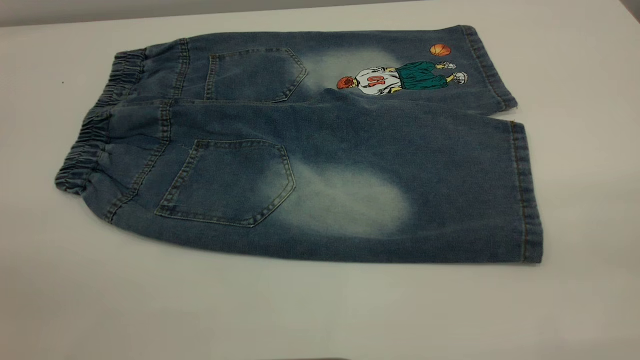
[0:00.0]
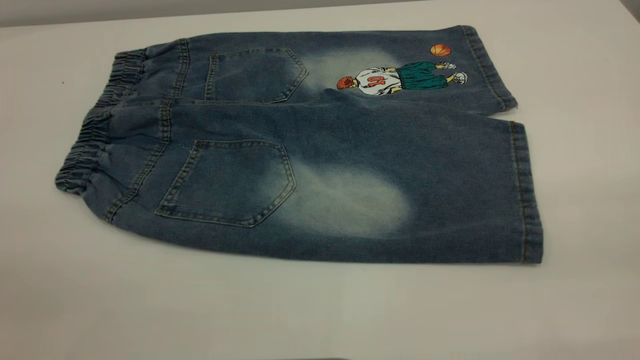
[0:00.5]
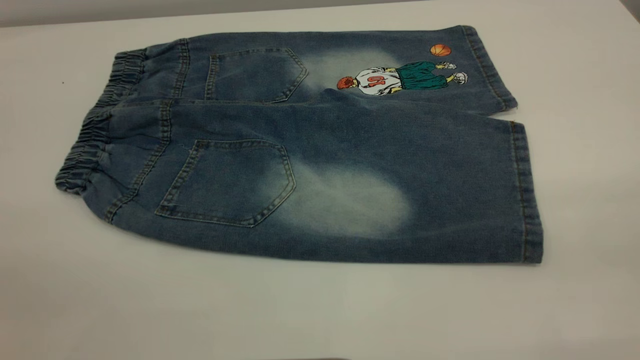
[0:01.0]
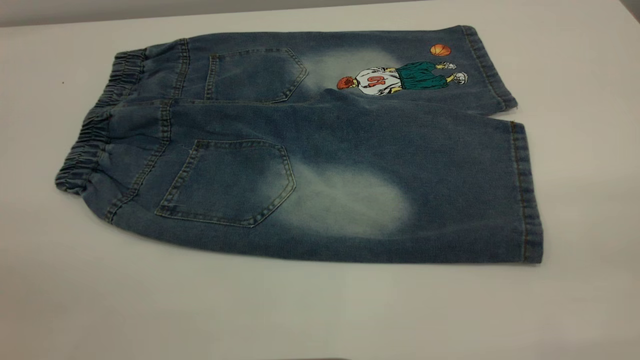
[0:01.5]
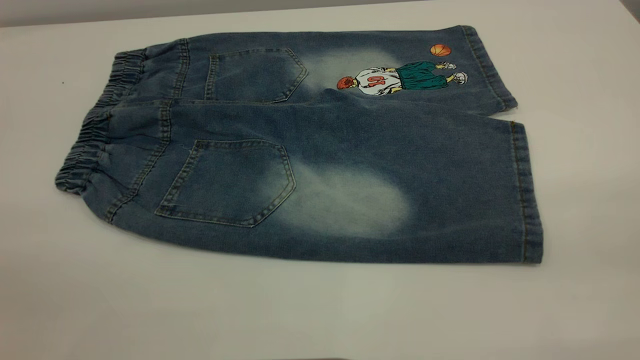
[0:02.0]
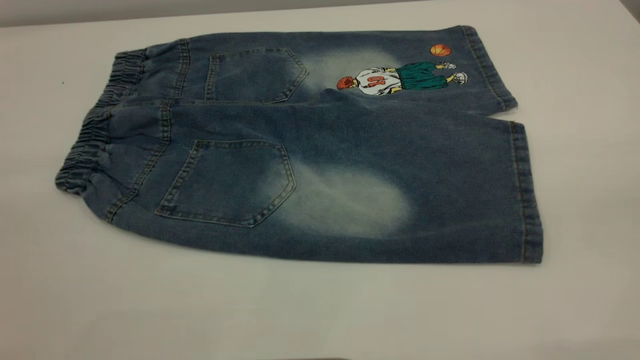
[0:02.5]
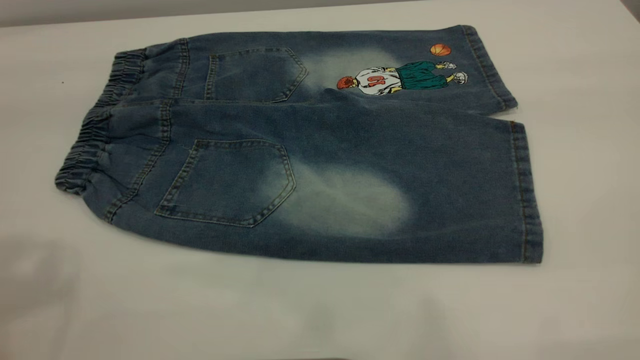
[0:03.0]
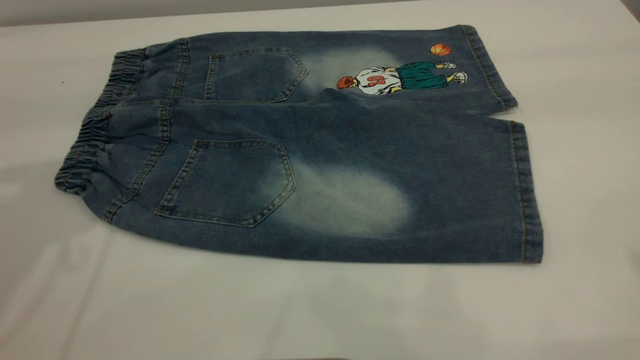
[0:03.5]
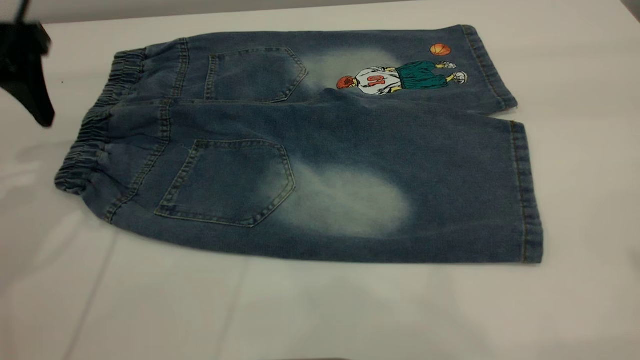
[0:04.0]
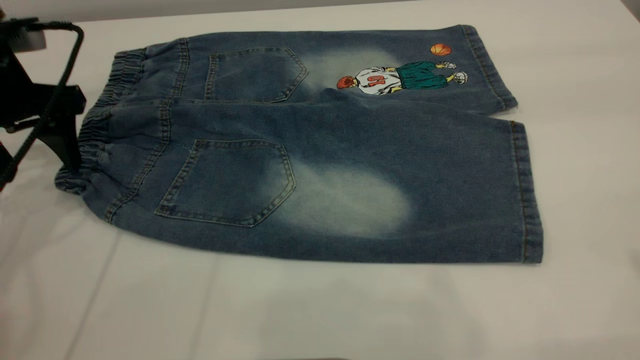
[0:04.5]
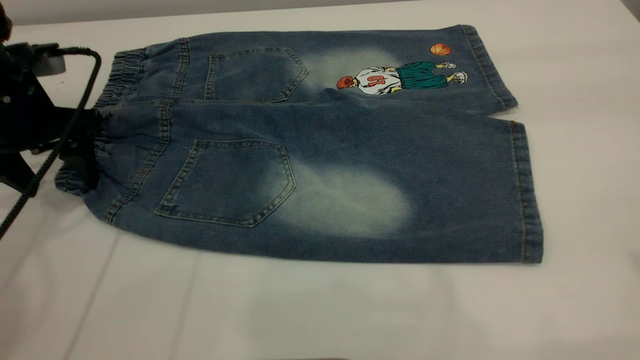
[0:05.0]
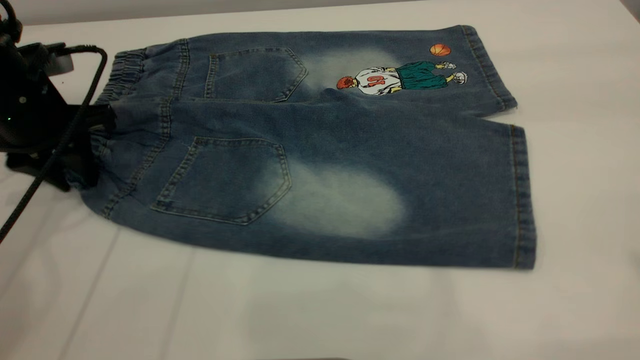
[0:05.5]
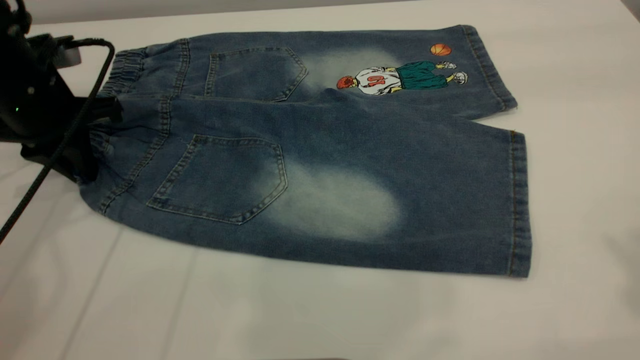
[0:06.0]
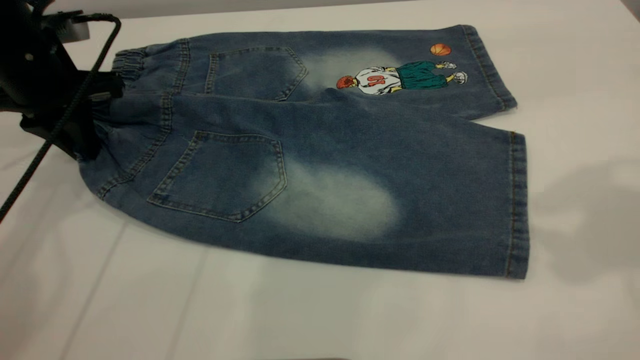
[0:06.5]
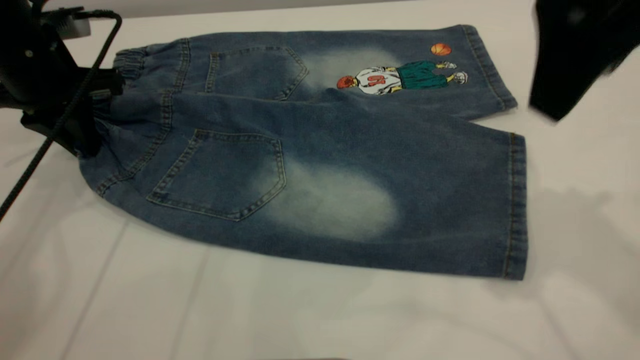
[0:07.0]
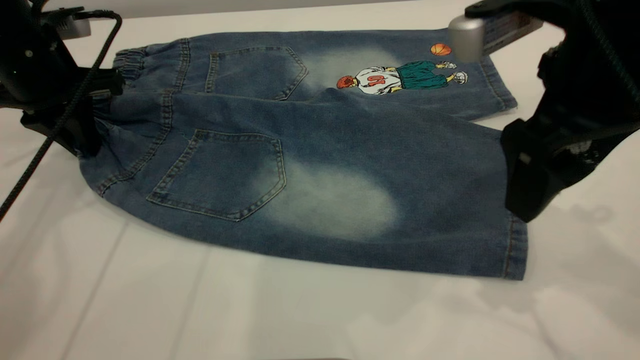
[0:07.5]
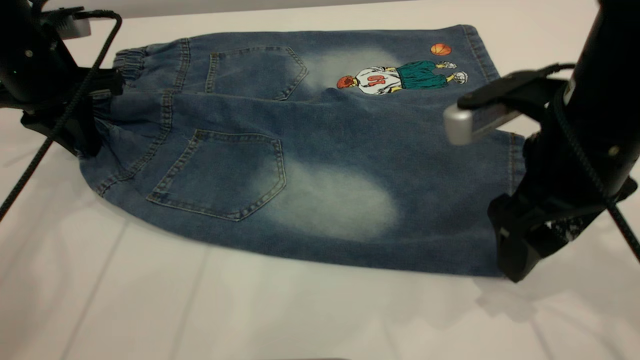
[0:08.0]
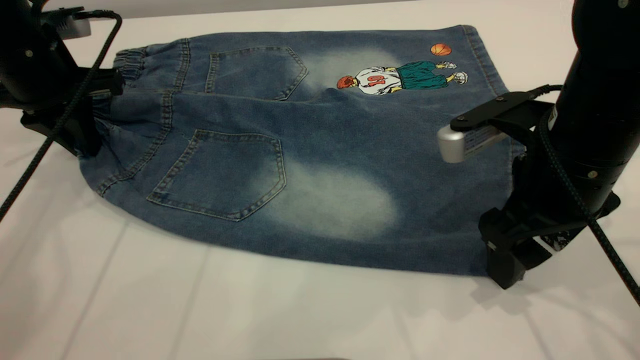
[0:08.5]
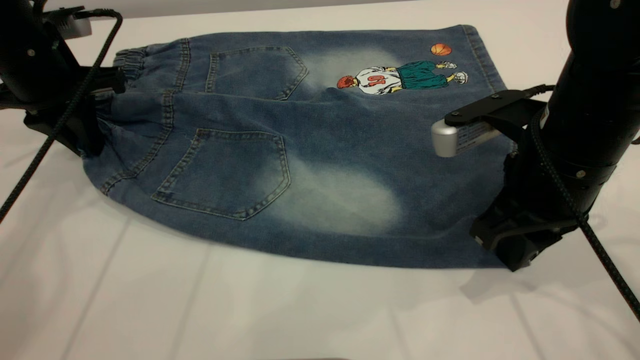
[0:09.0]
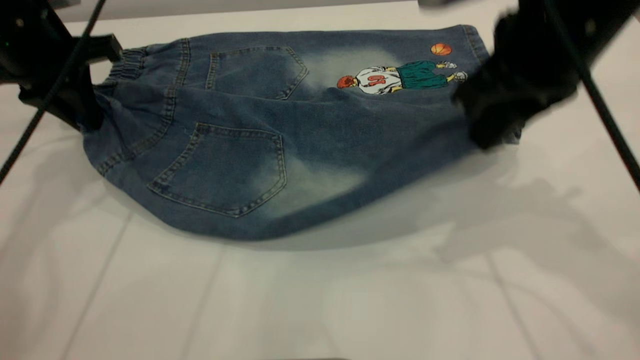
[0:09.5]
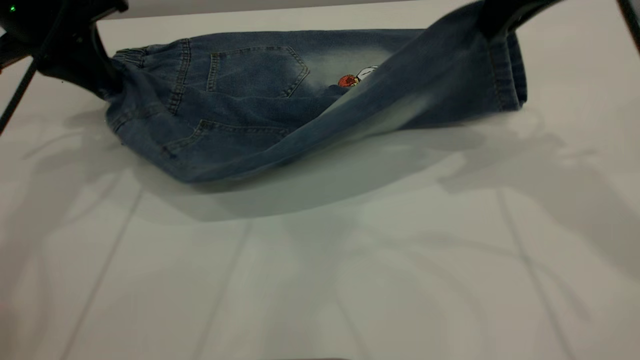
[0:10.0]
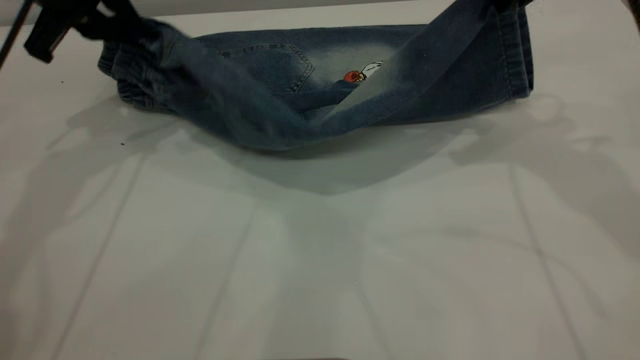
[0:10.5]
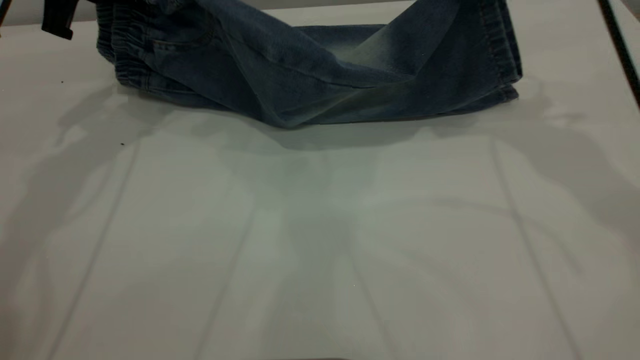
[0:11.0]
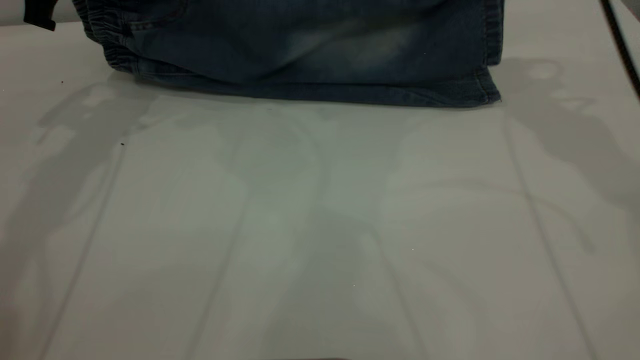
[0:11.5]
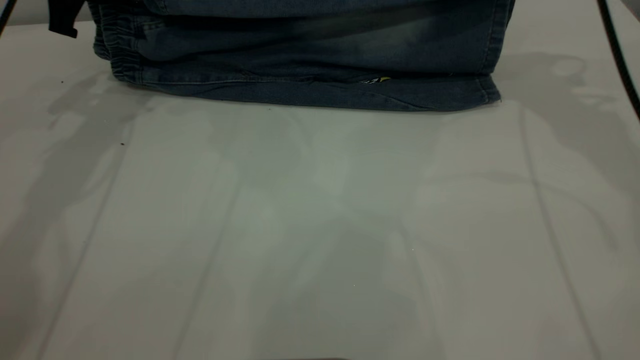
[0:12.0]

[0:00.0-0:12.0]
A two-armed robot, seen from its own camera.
0:00.0 to 0:02.0: Both grippers stay about where they are.
0:02.0 to 0:04.0: The left gripper is displaced forward by about 35 cm.
0:04.0 to 0:06.0: The left gripper travels downward by approximately 10 cm, and closes.
0:06.0 to 0:08.0: The right gripper travels downward by roughly 30 cm.
0:08.0 to 0:10.0: The left gripper travels upward by roughly 5 cm, while the right gripper heads upward and forward, covering approximately 15 cm, and closes its fingers.
0:10.0 to 0:12.0: The right gripper travels forward and to the right by some 10 cm. The left gripper is displaced forward by about 5 cm.

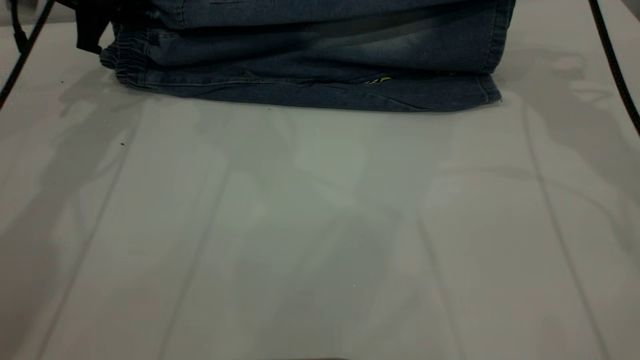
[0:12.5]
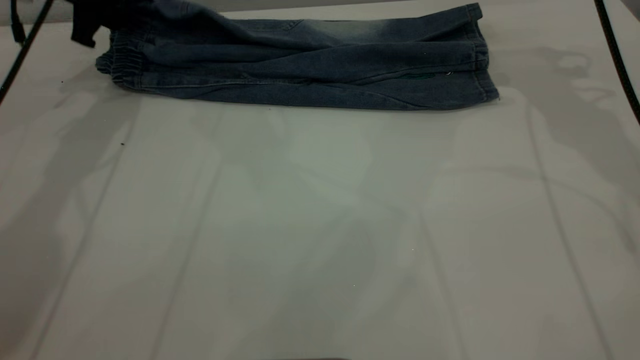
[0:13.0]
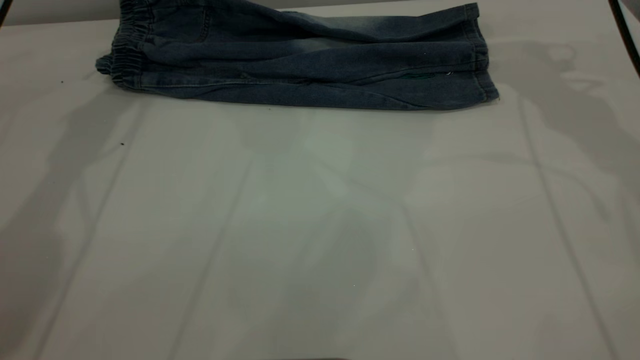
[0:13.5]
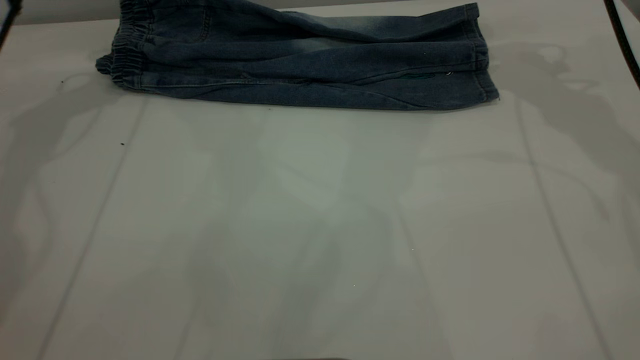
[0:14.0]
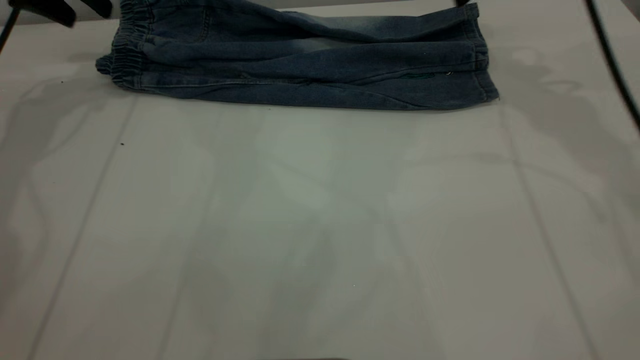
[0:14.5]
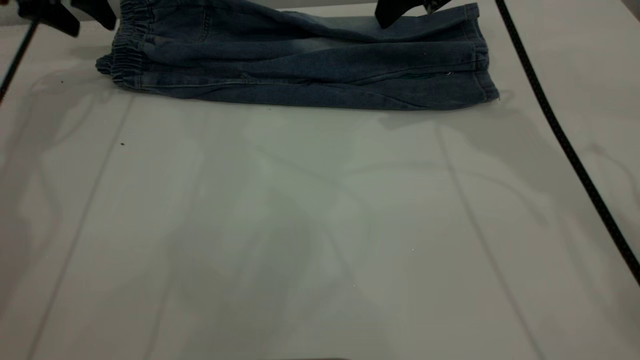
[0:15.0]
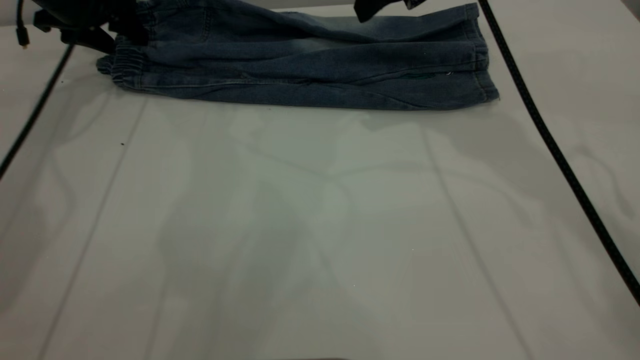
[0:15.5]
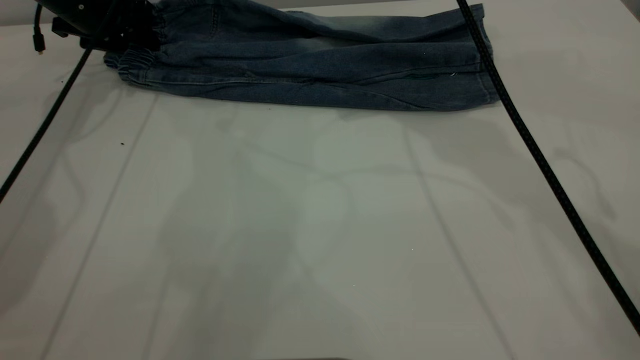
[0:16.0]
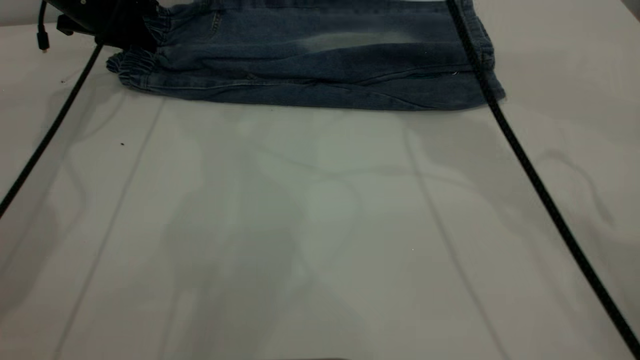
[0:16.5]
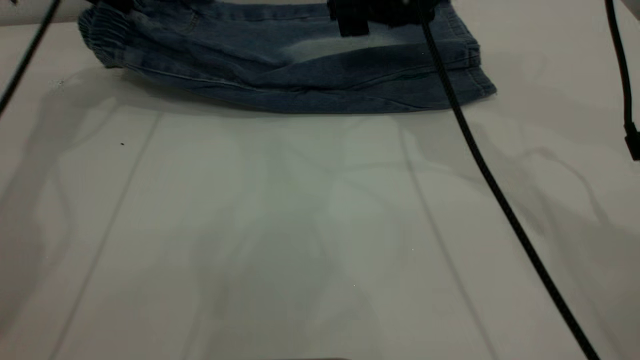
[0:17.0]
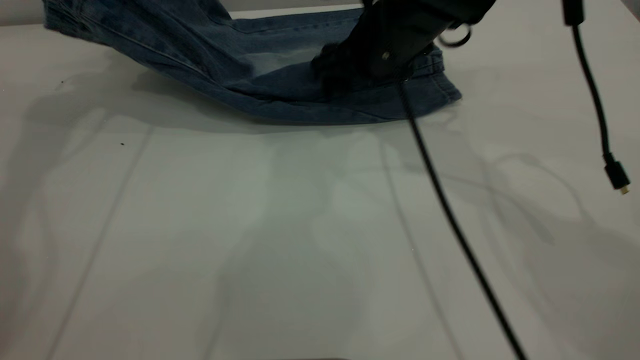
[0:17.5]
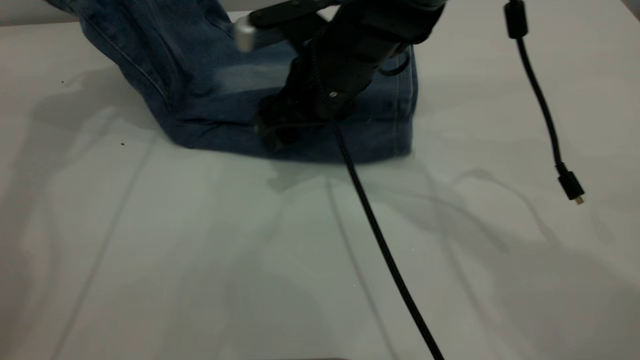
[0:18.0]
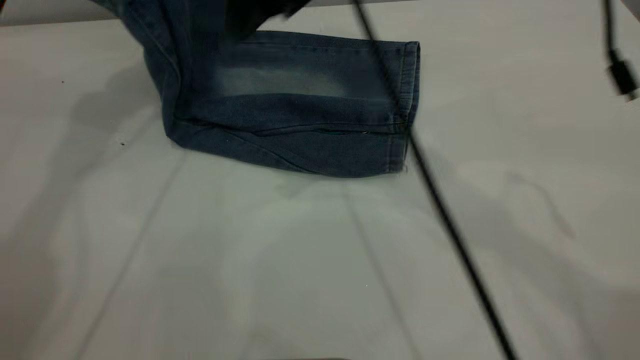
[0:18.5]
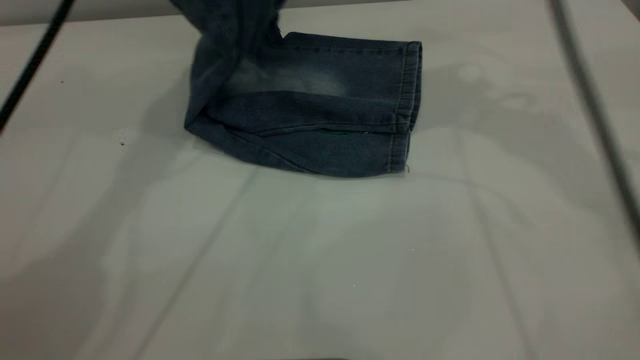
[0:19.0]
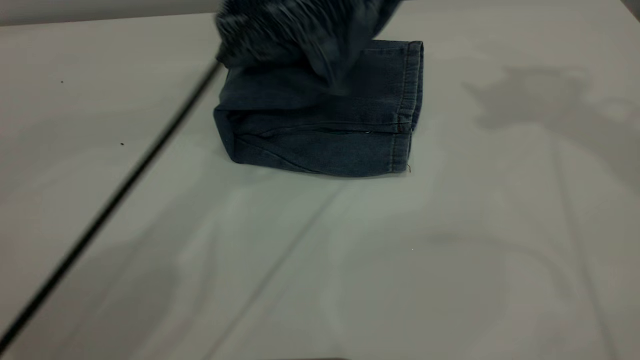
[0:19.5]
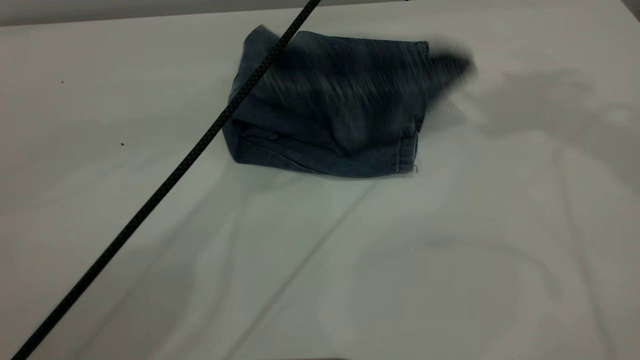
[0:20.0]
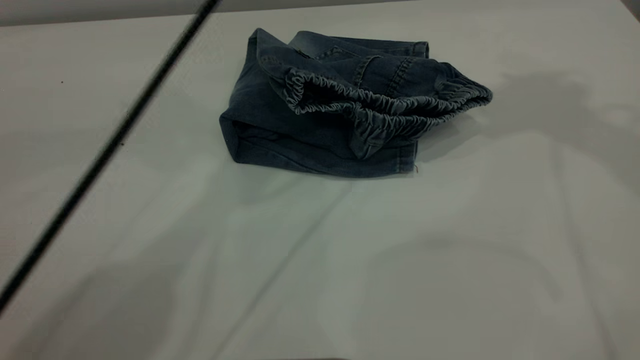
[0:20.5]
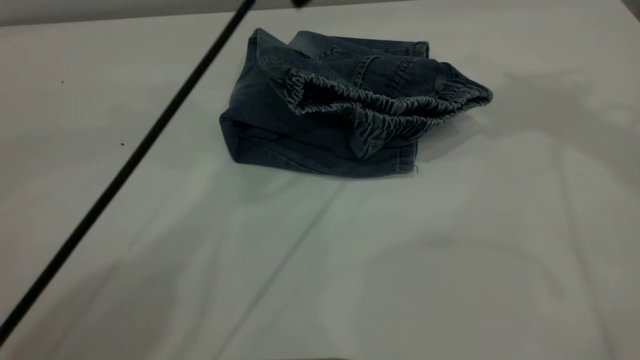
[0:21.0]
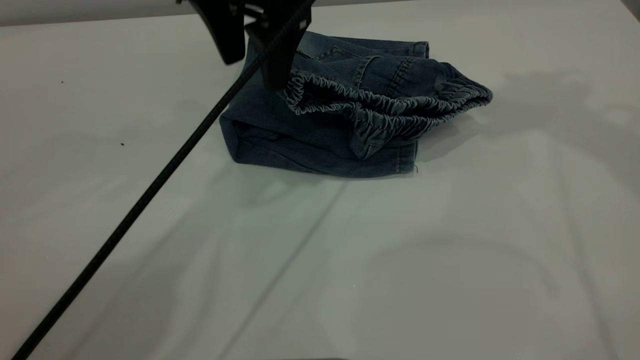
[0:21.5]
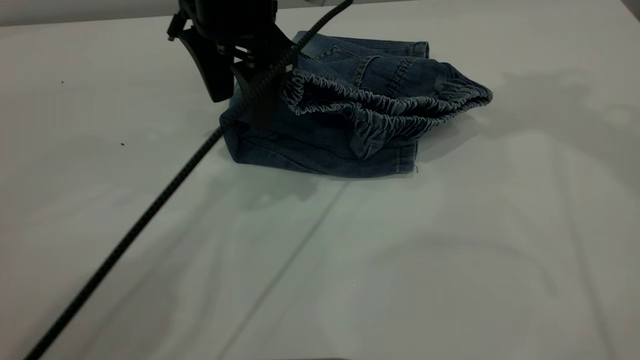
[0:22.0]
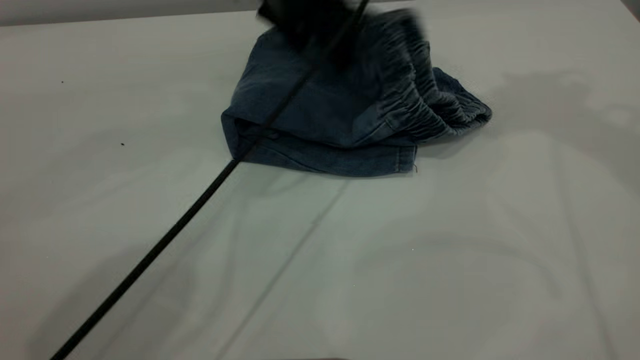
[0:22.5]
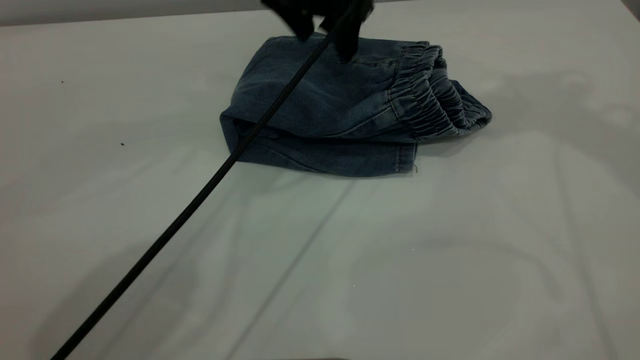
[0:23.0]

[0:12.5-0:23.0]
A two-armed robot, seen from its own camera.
Step, 0:14.0 to 0:20.5: Fold the pants from left to right.
0:12.5 to 0:14.5: The left gripper goes about 10 cm upward and to the left, and opens. Meanwhile the right gripper moves about 5 cm, and opens.
0:14.5 to 0:16.5: The left gripper heads downward, covering some 10 cm, and closes, while the right gripper is displaced to the left by roughly 10 cm.
0:16.5 to 0:19.0: The left gripper travels upward and to the right by about 25 cm. The right gripper shifts some 10 cm upward and to the right.
0:19.0 to 0:21.0: The right gripper goes approximately 15 cm upward and to the right, while the left gripper travels to the right and downward by roughly 10 cm, and opens.
0:21.0 to 0:23.0: The left gripper heads downward, covering about 10 cm.
